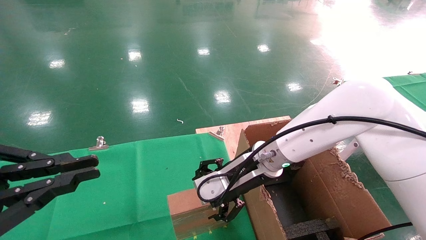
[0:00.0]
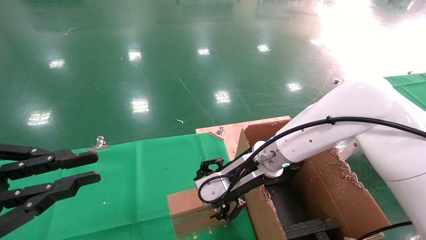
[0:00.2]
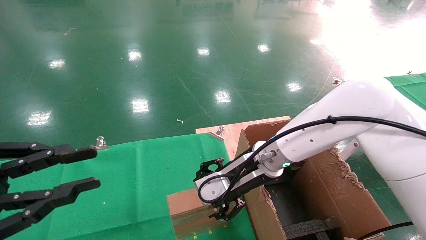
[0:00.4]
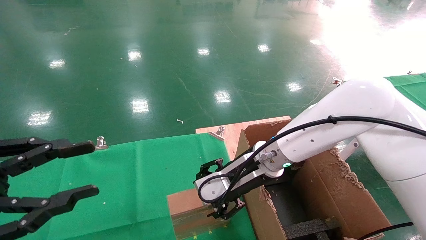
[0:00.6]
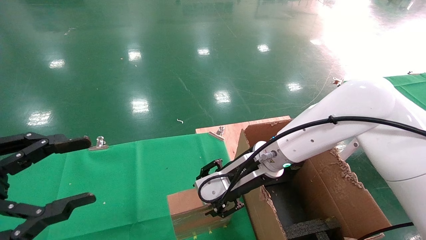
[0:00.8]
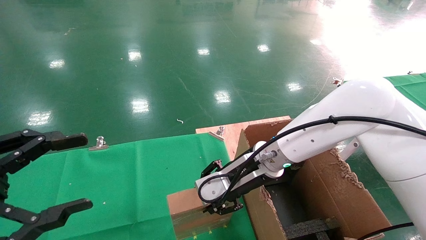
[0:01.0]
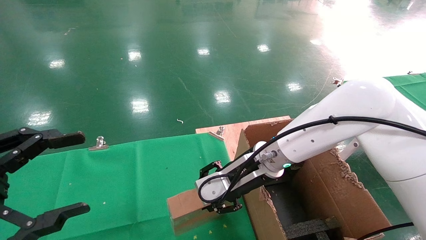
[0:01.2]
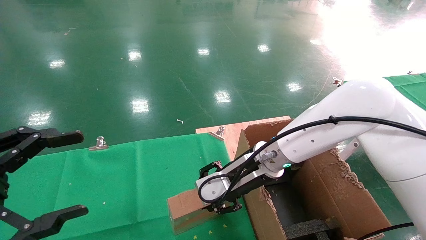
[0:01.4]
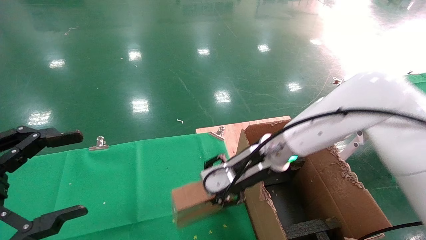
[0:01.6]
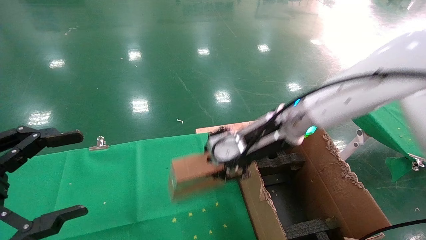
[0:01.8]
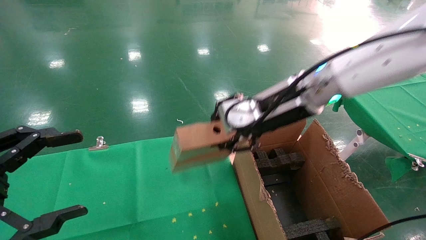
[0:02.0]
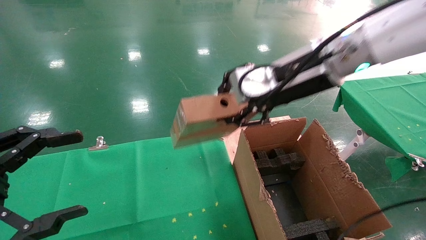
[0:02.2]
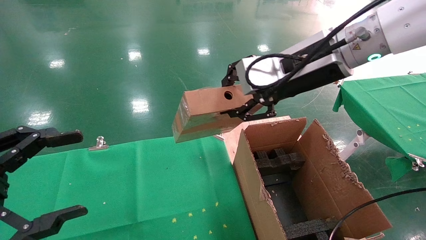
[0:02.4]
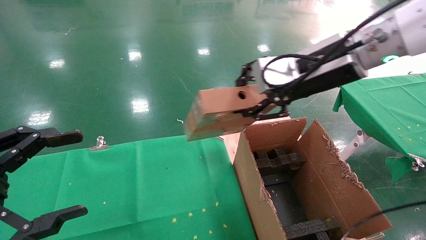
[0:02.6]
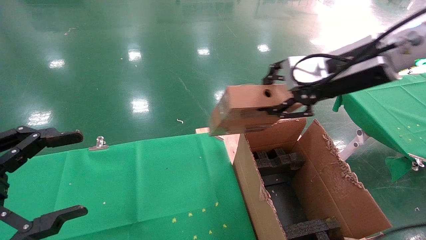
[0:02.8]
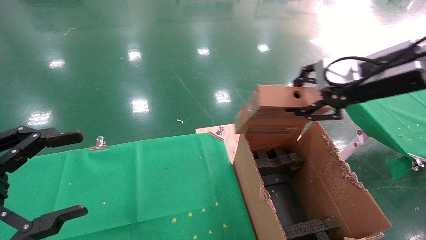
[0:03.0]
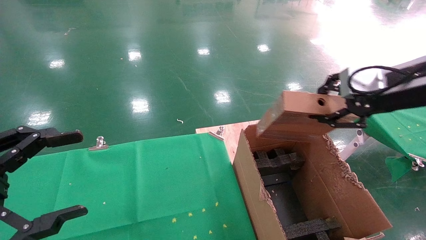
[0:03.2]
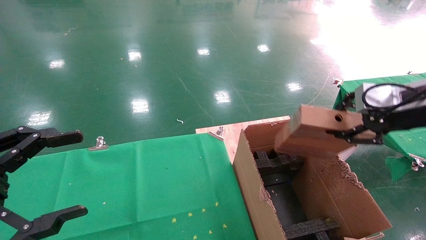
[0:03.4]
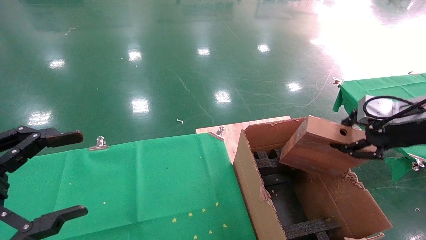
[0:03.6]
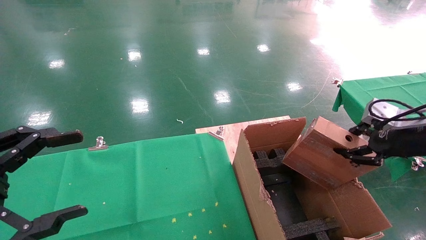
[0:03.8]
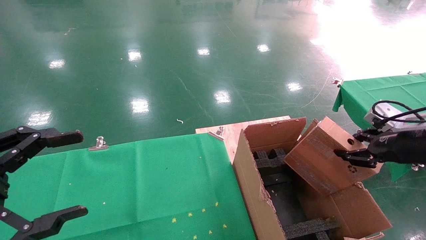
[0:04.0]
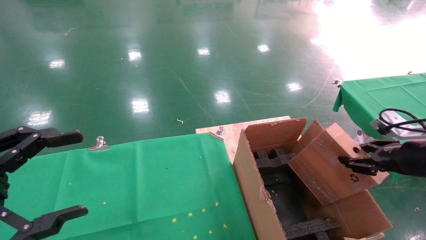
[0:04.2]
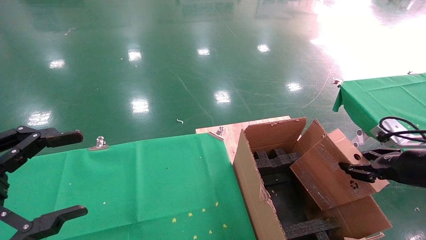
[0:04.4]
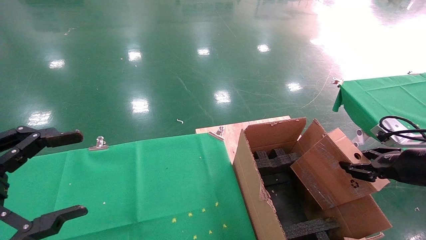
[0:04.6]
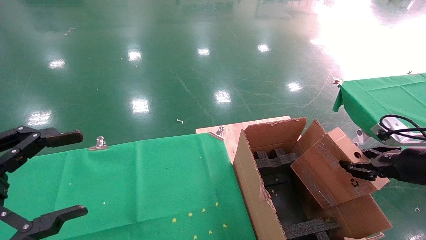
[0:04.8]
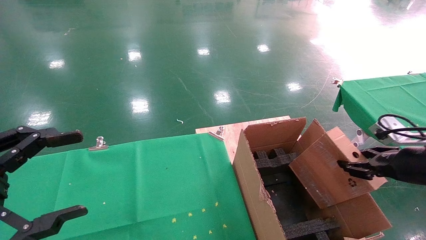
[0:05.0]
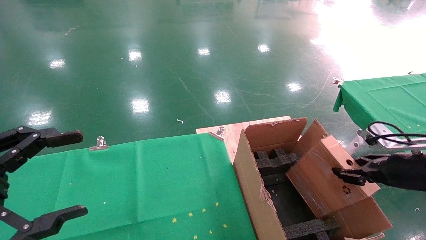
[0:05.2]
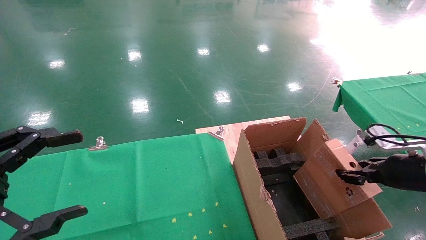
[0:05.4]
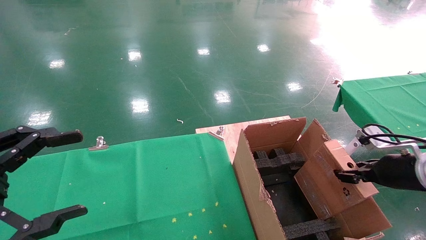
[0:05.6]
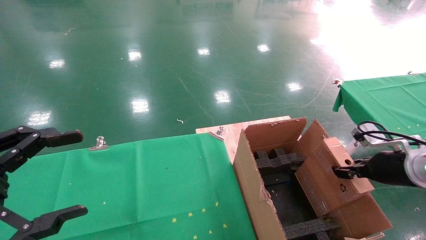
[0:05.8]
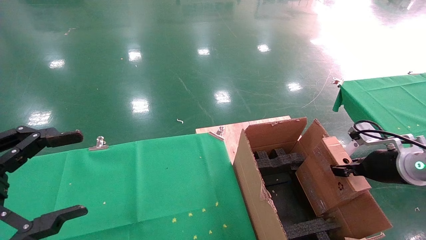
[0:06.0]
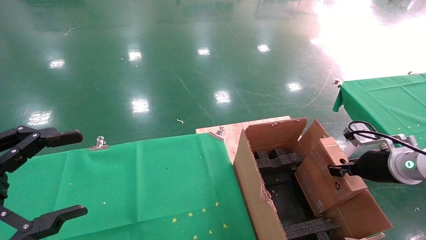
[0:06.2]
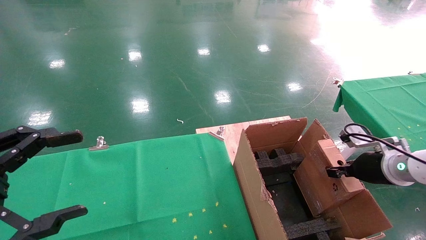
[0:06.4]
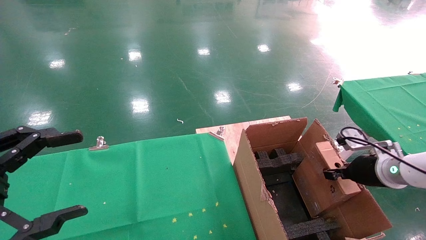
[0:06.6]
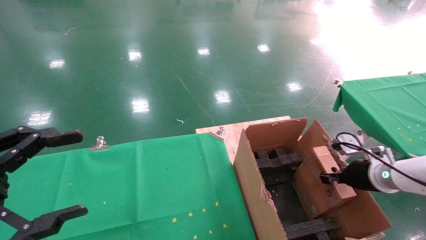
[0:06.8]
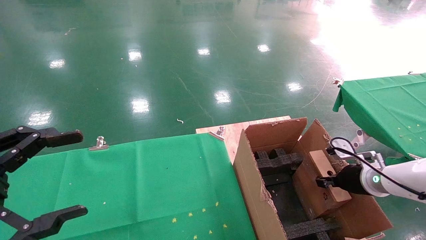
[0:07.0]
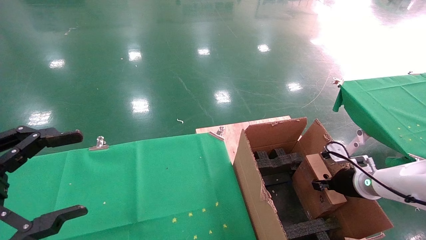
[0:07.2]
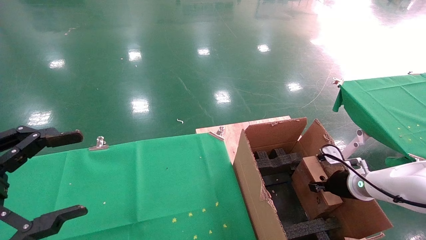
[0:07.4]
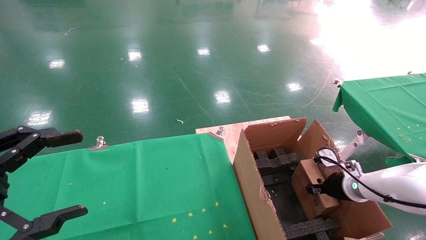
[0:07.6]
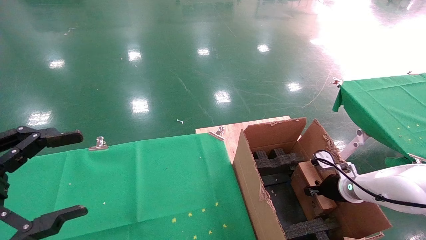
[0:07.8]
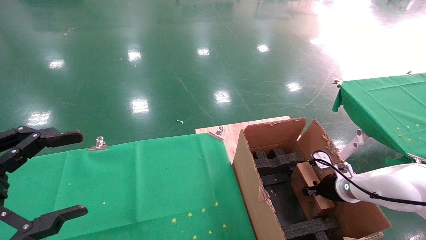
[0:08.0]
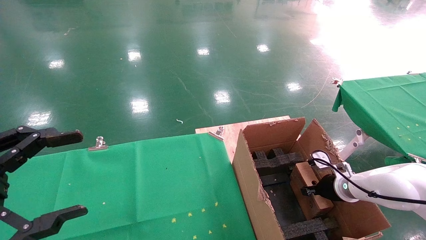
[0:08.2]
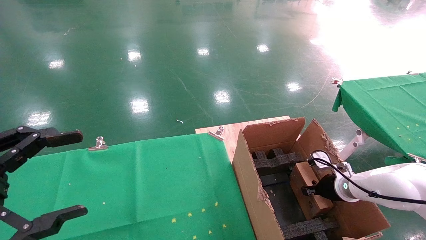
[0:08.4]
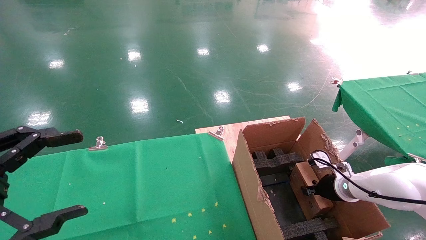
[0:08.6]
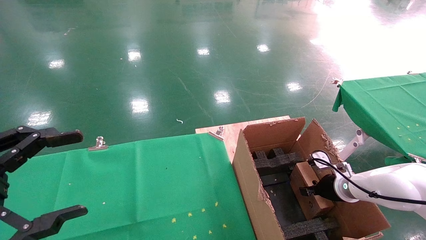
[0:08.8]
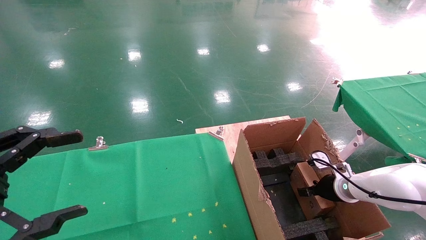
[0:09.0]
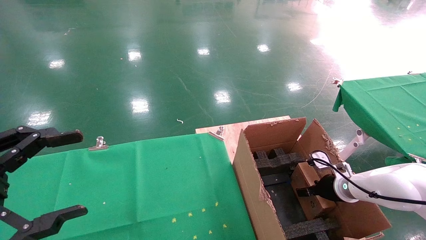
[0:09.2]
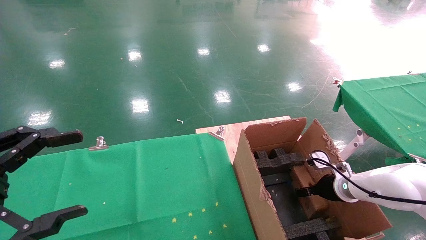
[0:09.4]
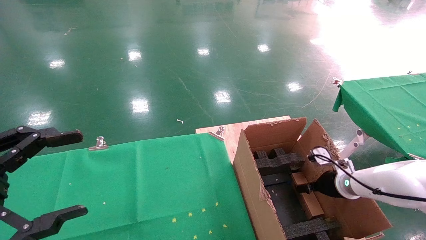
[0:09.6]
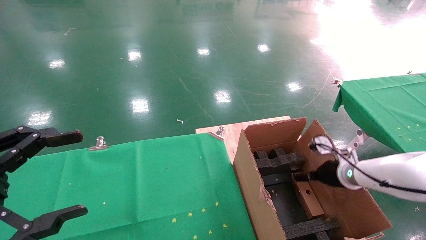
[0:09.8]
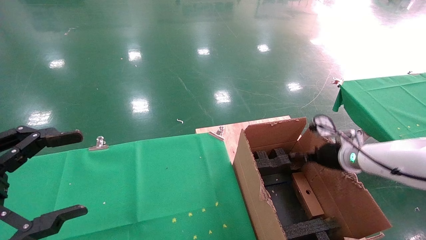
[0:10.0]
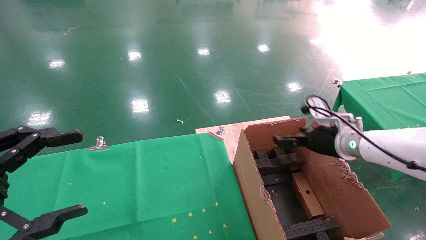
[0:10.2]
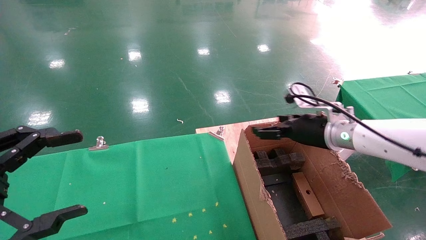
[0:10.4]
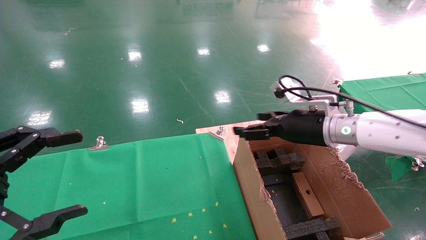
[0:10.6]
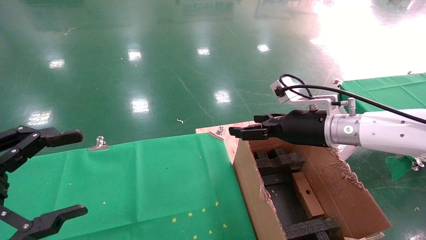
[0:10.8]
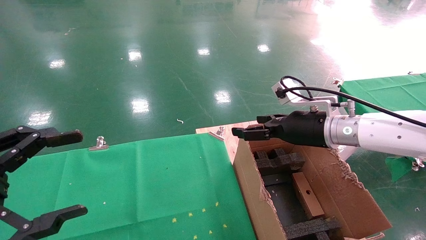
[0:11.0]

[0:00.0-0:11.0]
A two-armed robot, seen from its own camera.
Task of the whole recording: using a robotic arm to pick up a cardboard box and palace it the carton.
Step, 0:00.0 to 0:01.8: Pick up the mouse and the power cord paper box.
Step, 0:02.0 to 0:09.8: Place the mouse and the power cord paper box into the container.
0:00.0 to 0:01.6: The right gripper closes, while the left gripper opens up.
0:01.6 to 0:03.2: The right gripper is displaced to the right and upward by some 25 cm.
0:03.2 to 0:04.8: The right gripper travels downward and to the right by roughly 15 cm.
0:04.8 to 0:06.2: The right gripper goes roughly 5 cm forward.
0:06.2 to 0:07.8: The right gripper shifts some 15 cm downward and forward.
0:07.8 to 0:09.4: The right gripper opens its fingers.
0:09.4 to 0:11.0: The right gripper moves upward and to the left, about 25 cm.

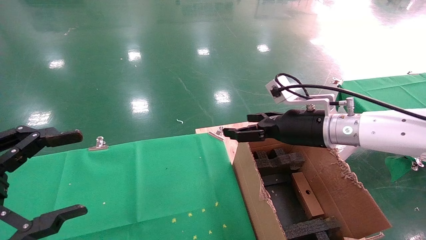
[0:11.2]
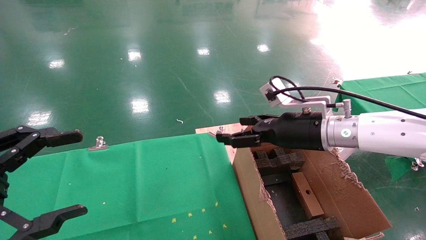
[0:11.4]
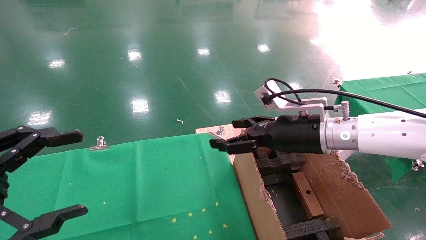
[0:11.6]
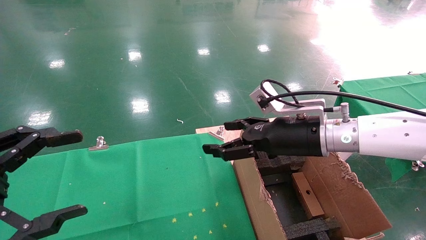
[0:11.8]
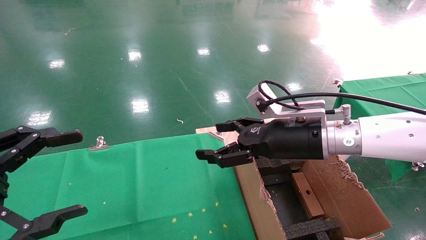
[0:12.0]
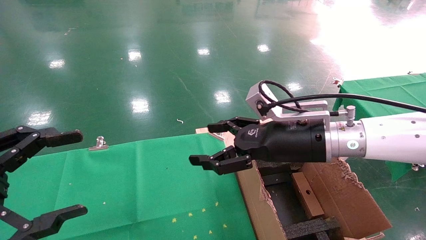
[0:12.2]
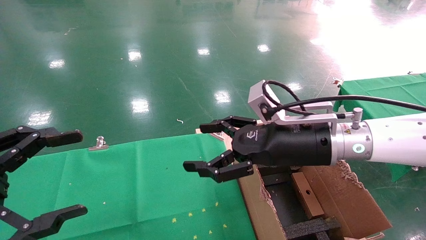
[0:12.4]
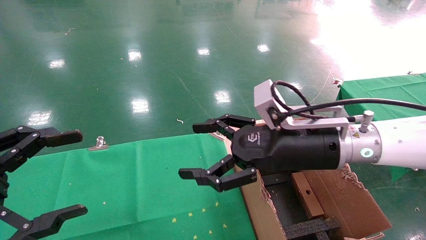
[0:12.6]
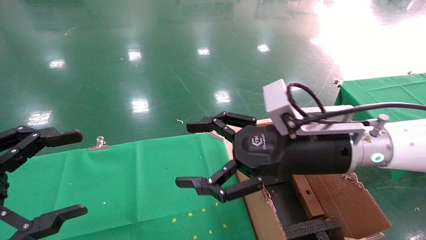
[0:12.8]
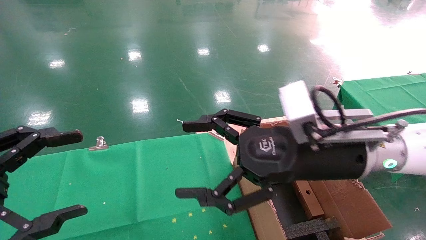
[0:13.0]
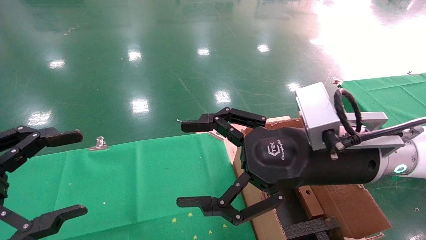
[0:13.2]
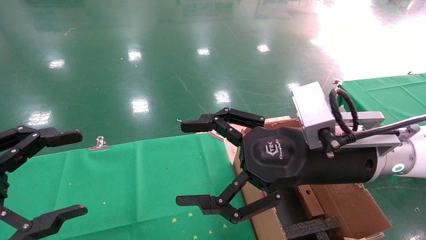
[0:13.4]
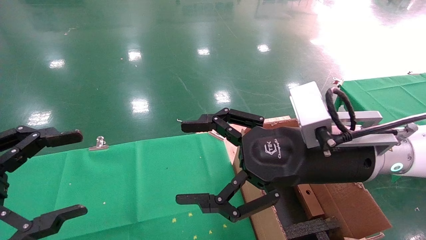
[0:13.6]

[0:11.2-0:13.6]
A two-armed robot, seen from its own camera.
Task of the whole recording: using a robotic arm to pick up a cardboard box and palace it the carton.
0:11.2 to 0:12.4: The right gripper travels backward and to the left by about 10 cm.
0:12.4 to 0:13.6: The right gripper shifts about 5 cm backward.

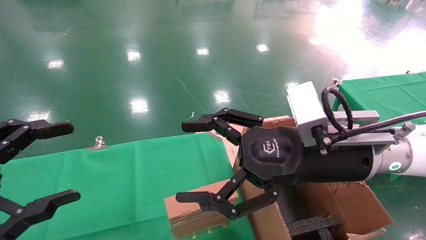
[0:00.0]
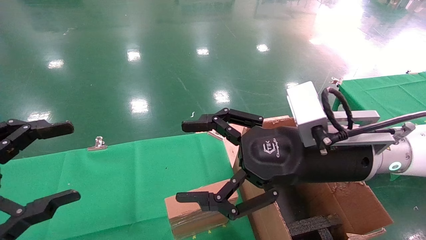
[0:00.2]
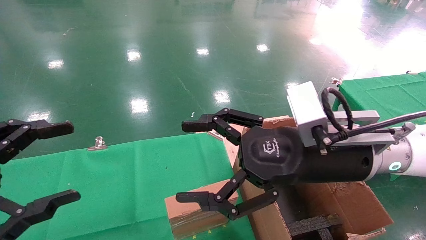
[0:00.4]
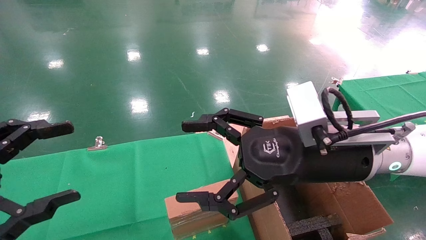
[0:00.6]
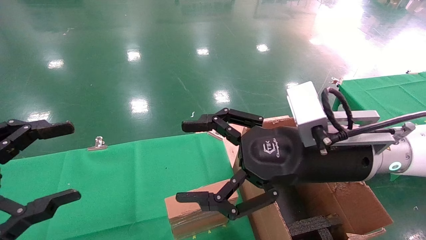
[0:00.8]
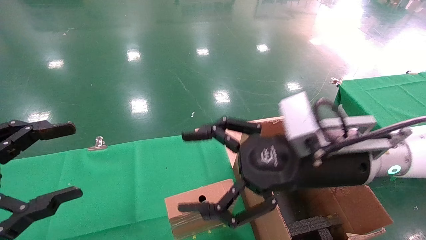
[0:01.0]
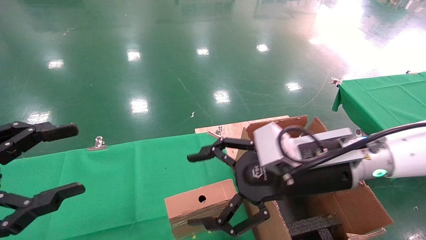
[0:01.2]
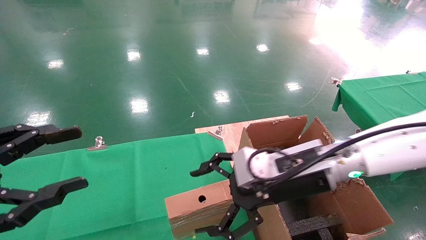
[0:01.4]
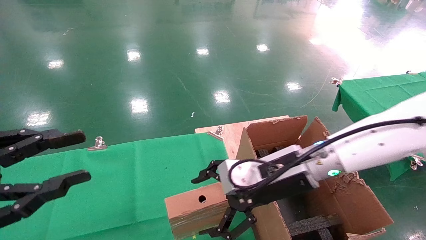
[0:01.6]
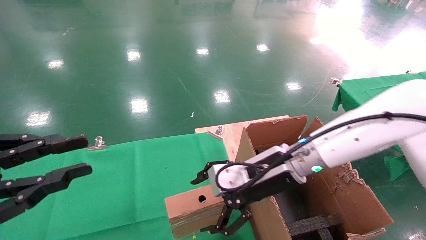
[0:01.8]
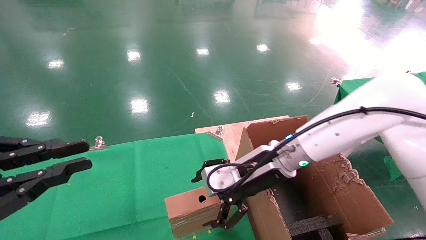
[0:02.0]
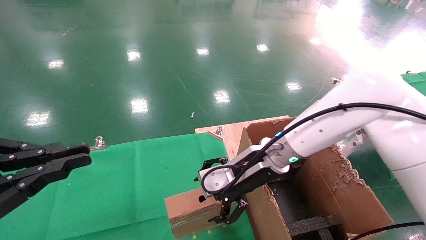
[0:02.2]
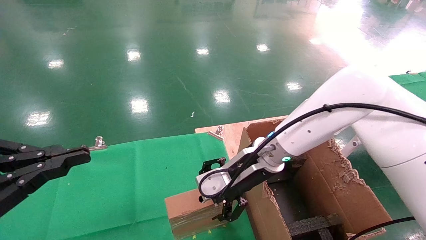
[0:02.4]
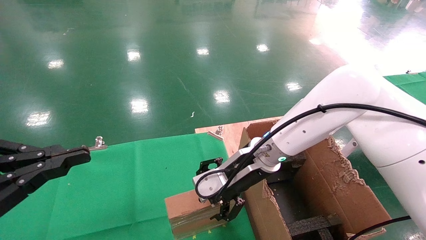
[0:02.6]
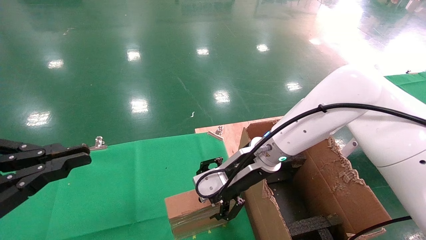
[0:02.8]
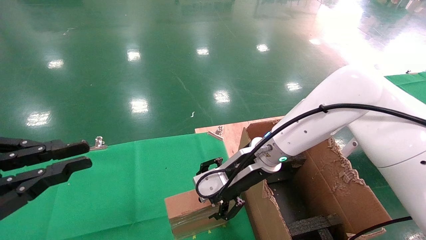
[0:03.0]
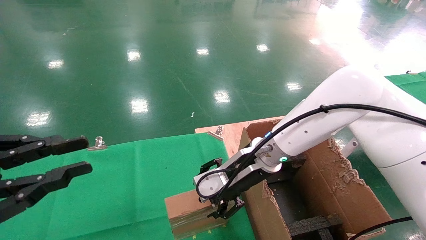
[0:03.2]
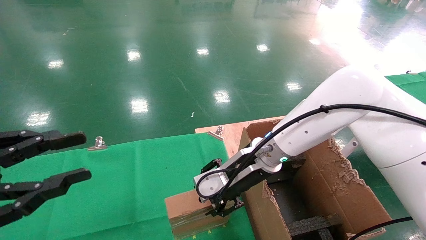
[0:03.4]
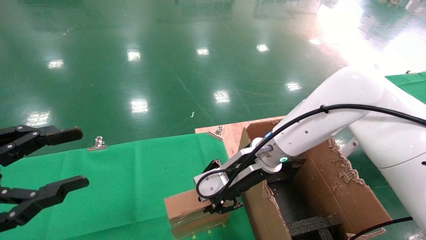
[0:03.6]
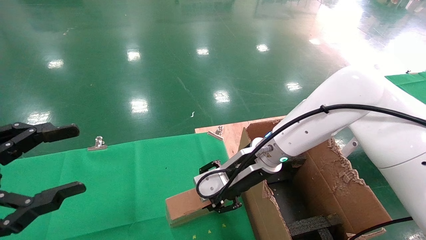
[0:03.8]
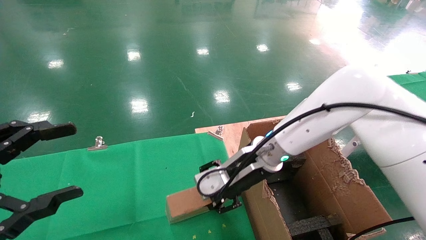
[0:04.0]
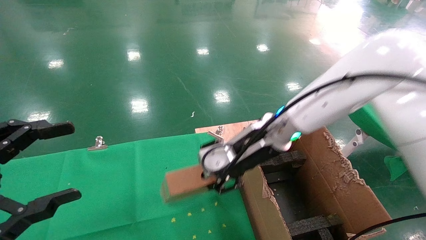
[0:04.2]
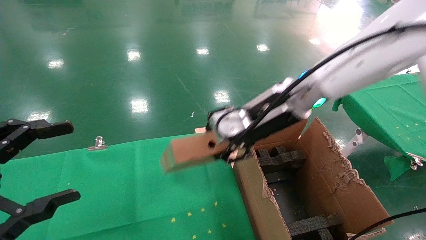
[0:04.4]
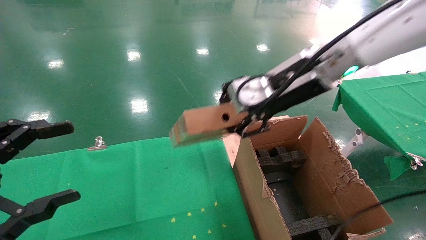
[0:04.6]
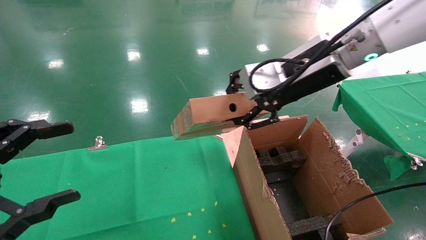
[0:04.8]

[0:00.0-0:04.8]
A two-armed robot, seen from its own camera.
Task of the whole recording: using a robotic arm to pick up a cardboard box and palace it the carton.
Step, 0:01.2 to 0:03.6: Pick up the mouse and the power cord paper box.
0:00.0 to 0:01.6: The left gripper closes up; the right gripper travels forward and downward by approximately 10 cm.
0:01.6 to 0:03.2: The left gripper closes its fingers. The right gripper goes approximately 5 cm forward.
0:03.2 to 0:04.8: The right gripper moves upward and to the right, some 20 cm, and closes up. The left gripper opens up.
